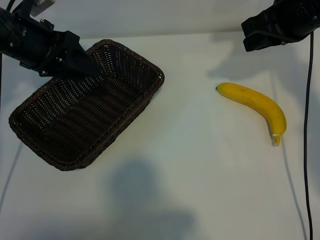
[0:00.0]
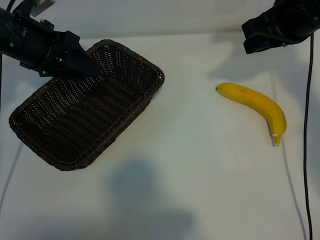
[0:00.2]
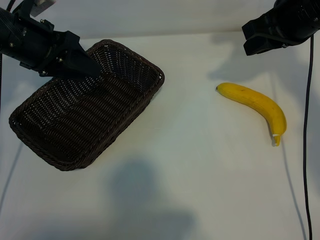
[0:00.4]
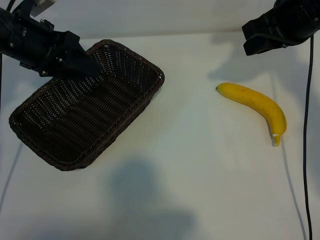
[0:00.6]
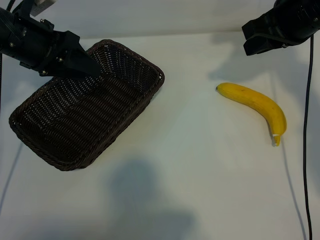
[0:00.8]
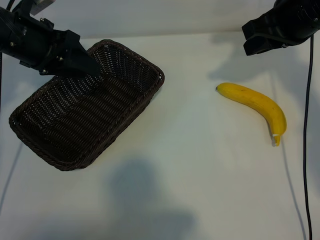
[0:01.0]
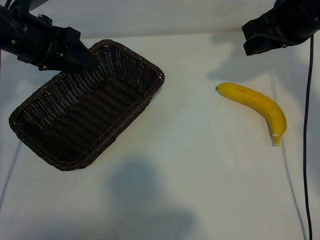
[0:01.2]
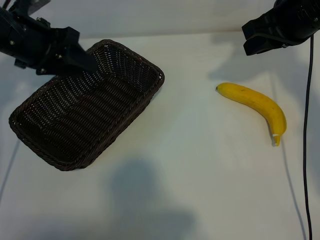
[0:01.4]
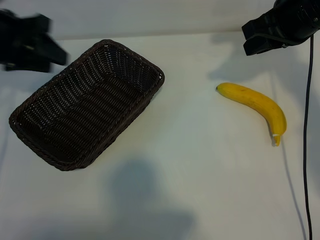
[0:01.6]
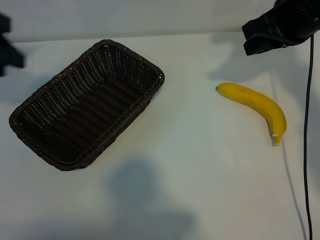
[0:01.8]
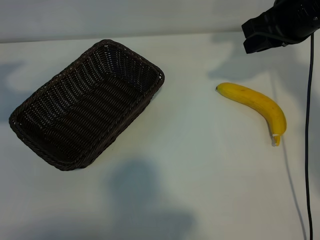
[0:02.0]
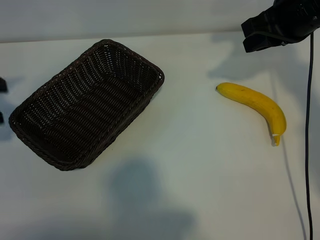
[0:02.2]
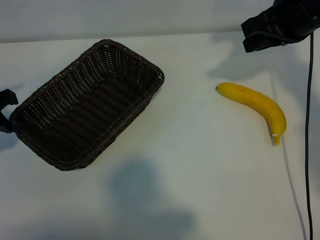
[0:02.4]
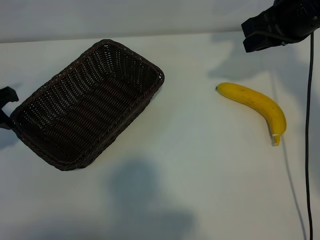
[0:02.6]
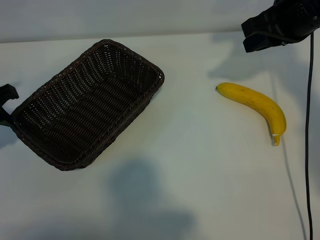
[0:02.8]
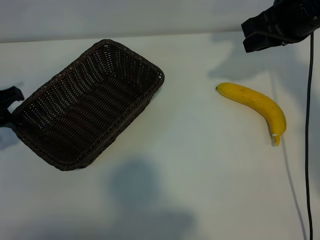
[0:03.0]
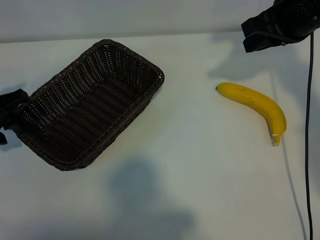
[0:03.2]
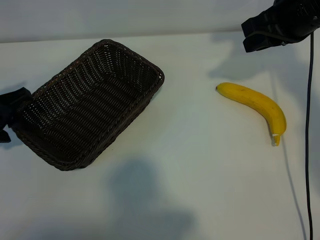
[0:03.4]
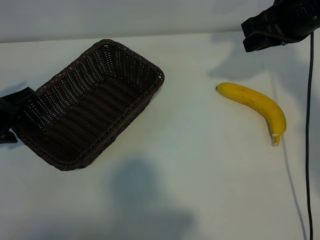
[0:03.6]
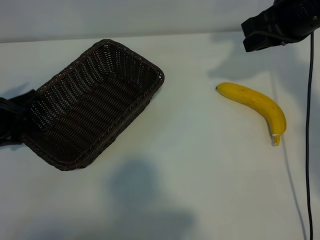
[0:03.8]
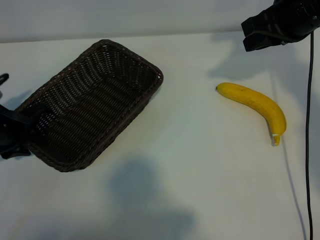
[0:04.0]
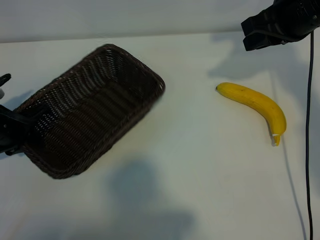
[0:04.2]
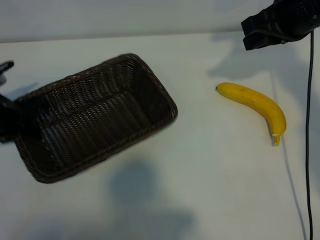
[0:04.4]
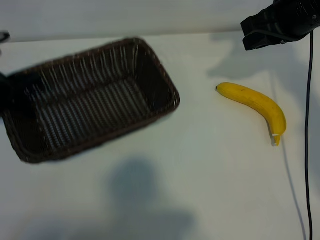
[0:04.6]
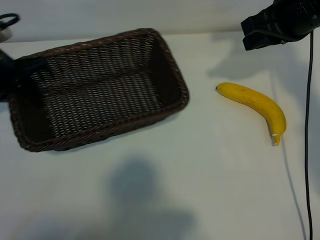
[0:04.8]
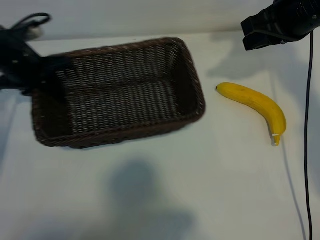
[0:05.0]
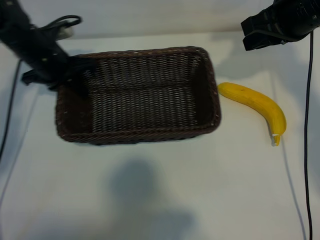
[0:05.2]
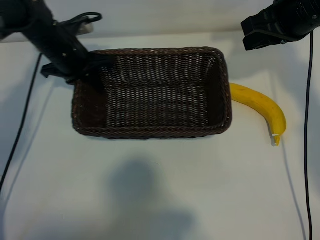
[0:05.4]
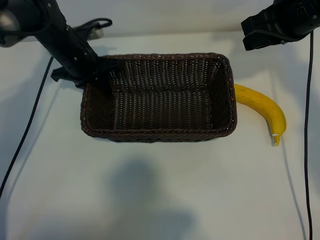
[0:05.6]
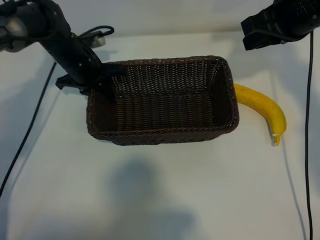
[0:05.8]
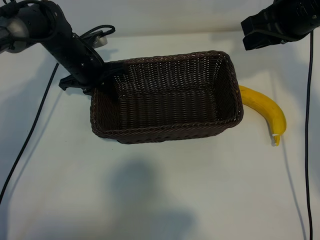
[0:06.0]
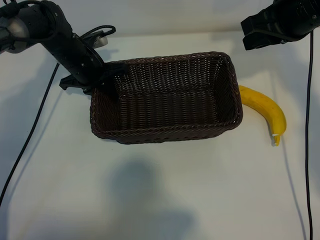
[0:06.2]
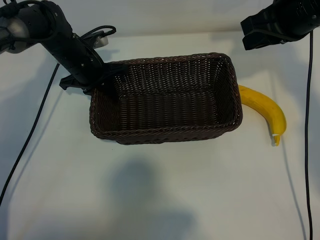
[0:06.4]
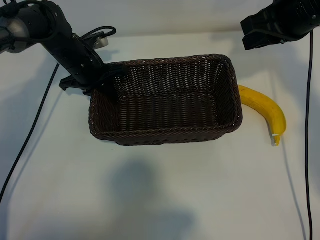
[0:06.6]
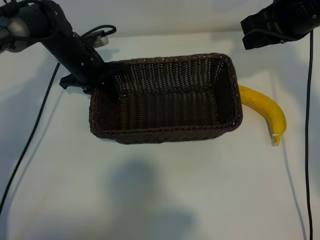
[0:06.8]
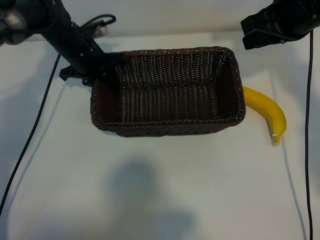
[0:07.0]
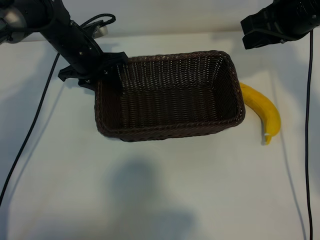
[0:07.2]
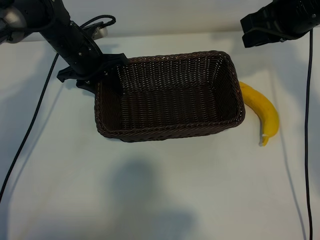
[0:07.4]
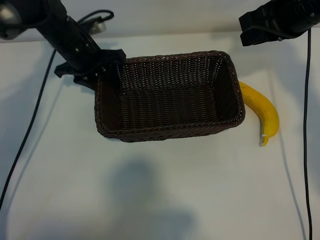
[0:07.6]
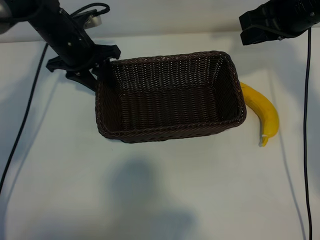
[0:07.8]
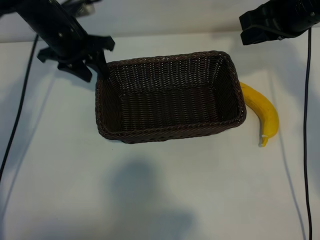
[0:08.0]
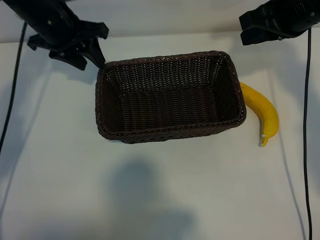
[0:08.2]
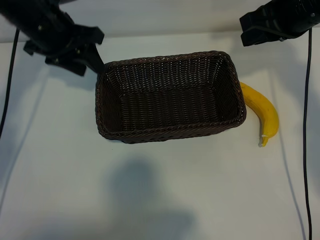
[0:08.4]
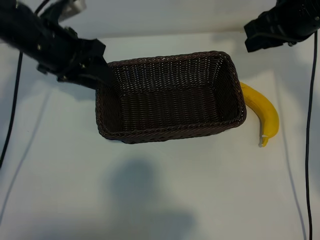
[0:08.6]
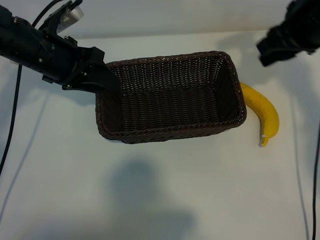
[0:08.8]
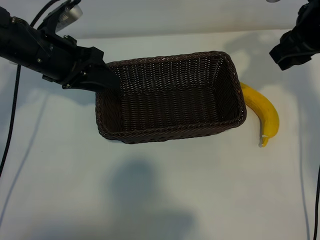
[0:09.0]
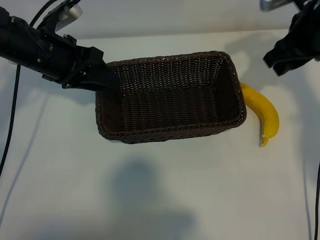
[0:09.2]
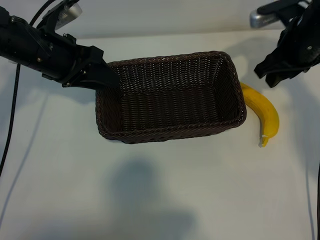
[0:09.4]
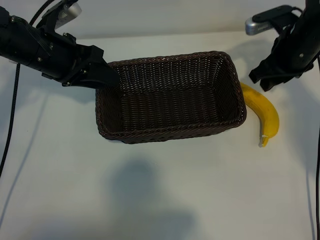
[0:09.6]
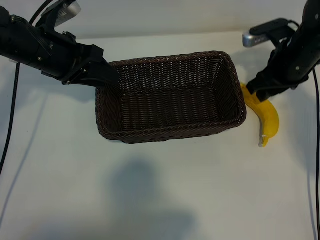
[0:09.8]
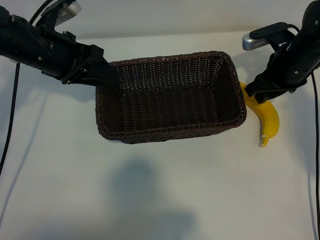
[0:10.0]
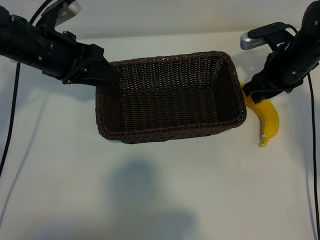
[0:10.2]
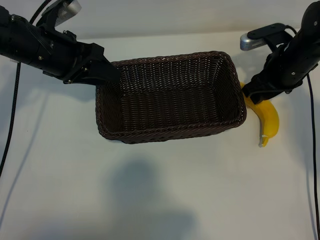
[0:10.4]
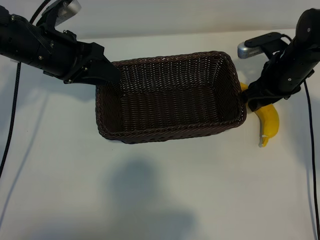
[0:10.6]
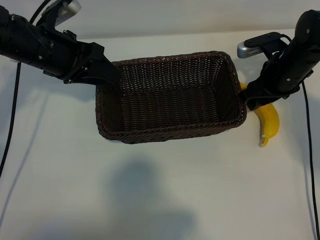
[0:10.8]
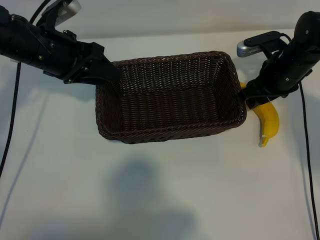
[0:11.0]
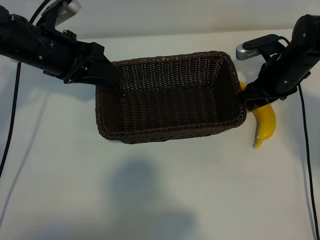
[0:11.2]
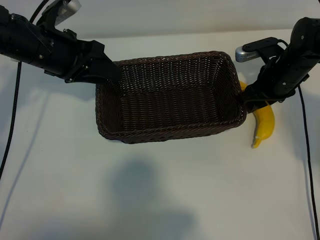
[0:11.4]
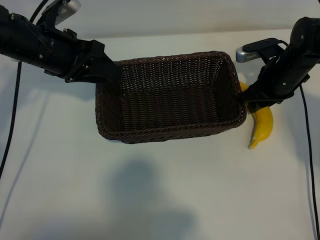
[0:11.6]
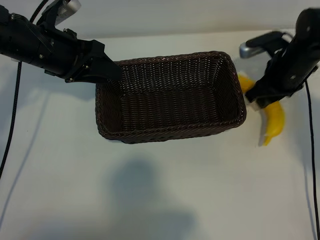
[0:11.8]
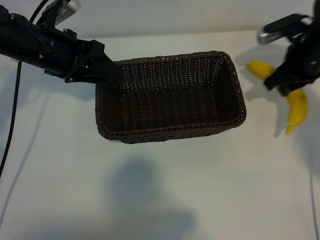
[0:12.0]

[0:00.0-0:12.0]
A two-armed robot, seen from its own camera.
Task of the whole recording: pick up the banana and put it into the basket.
Step, 0.8 to 4.2 s: Grasp the basket with the left gripper.
Step, 4.4 to 7.8 s: Place the basket in the center of the table with the left gripper.
Step, 8.0 to 11.4 s: Grasp the banana with right gripper.

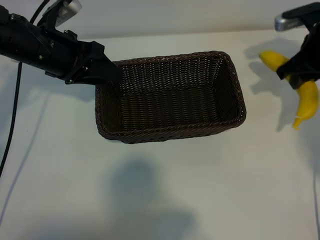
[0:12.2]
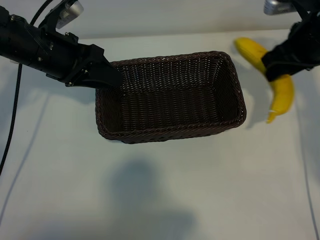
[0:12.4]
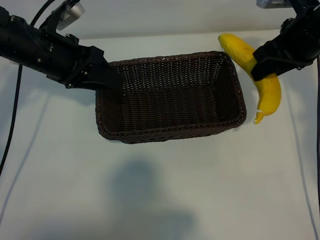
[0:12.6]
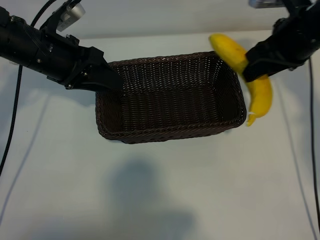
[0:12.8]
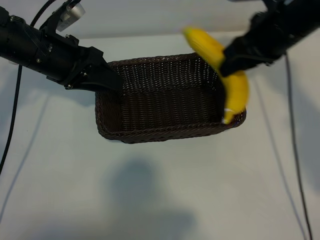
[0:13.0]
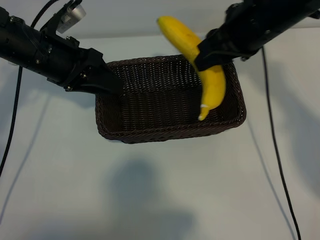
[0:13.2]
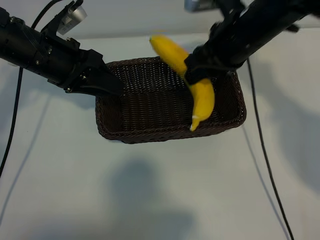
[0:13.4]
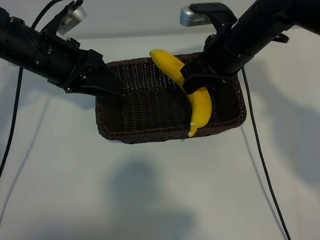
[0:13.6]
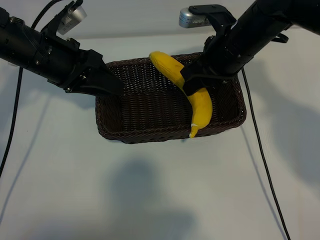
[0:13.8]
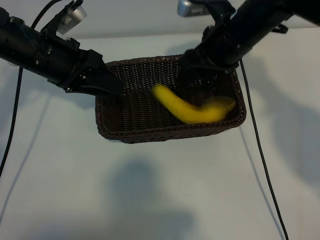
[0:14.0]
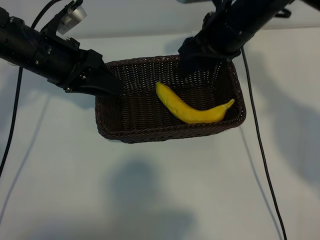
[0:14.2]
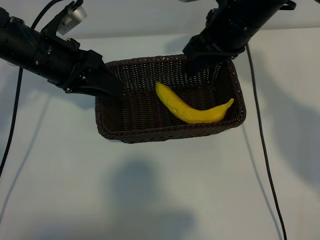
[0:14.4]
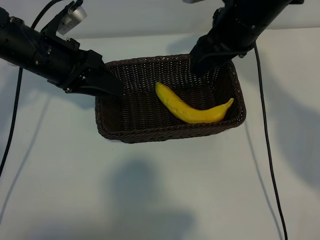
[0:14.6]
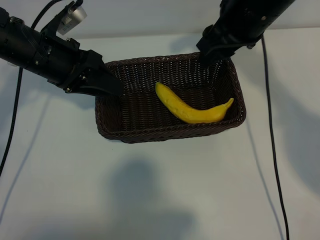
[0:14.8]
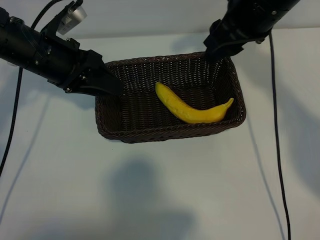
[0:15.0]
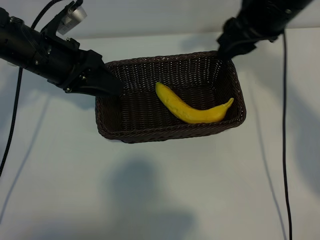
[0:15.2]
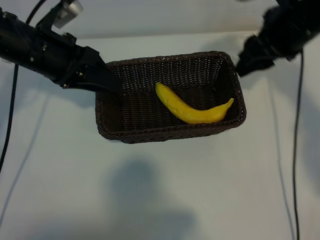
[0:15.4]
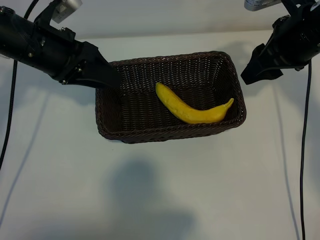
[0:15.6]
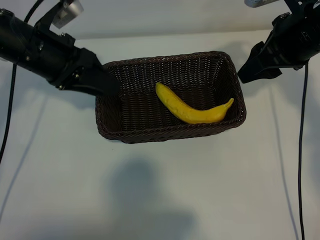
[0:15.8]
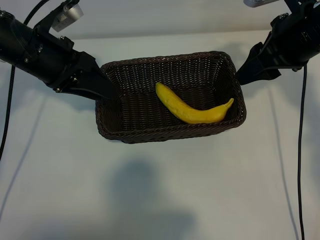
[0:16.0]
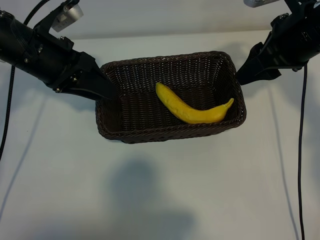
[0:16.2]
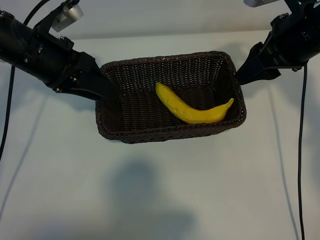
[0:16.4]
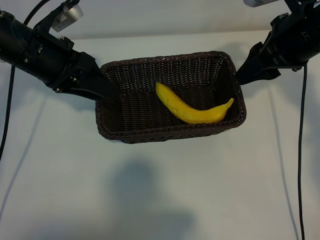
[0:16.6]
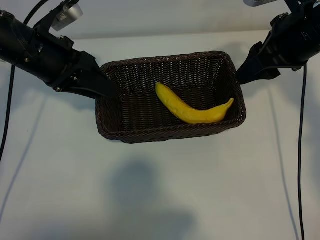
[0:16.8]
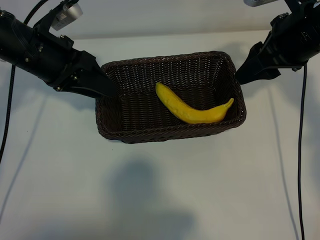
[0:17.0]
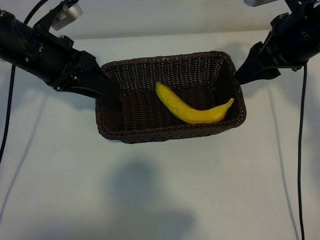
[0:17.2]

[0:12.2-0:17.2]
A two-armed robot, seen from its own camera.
Task of the whole recording: pick up the banana and put it into the basket.
Step, 12.2 to 14.2 s: Place the banana in the basket with right gripper.

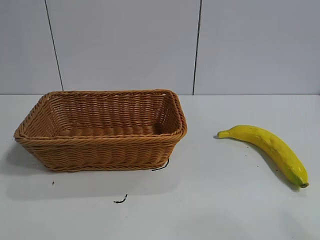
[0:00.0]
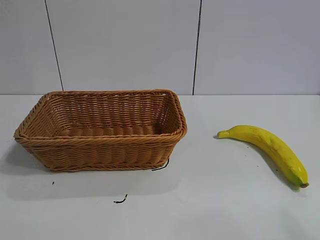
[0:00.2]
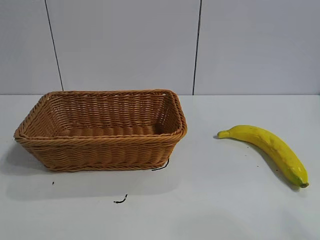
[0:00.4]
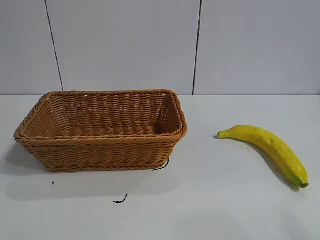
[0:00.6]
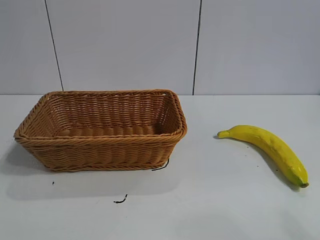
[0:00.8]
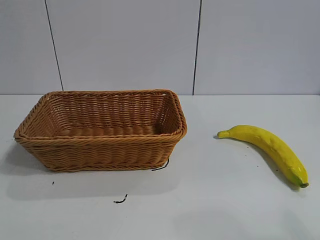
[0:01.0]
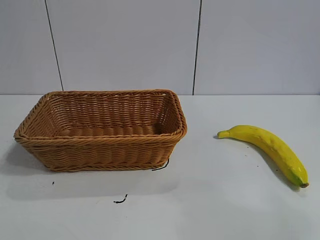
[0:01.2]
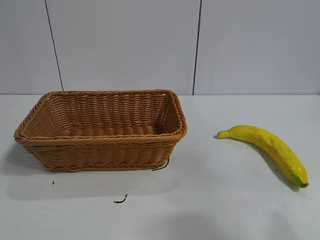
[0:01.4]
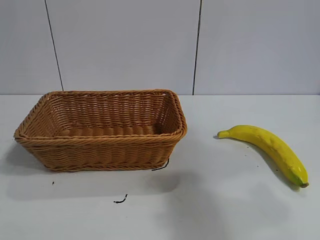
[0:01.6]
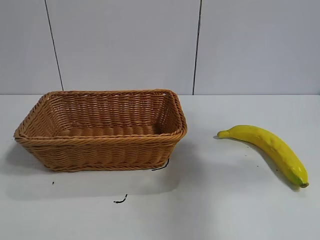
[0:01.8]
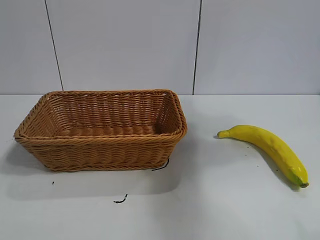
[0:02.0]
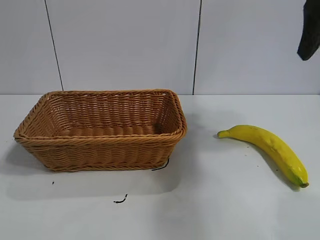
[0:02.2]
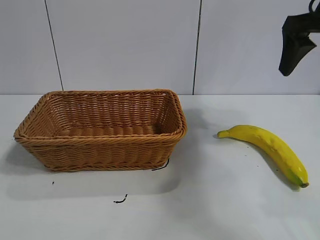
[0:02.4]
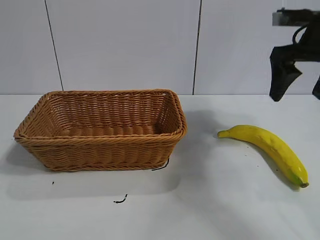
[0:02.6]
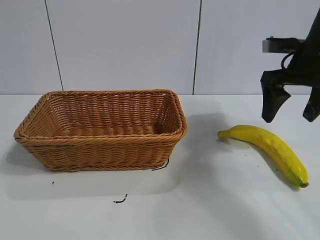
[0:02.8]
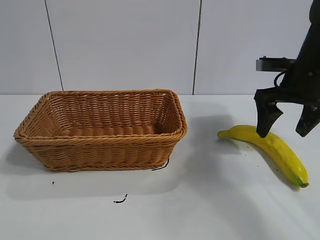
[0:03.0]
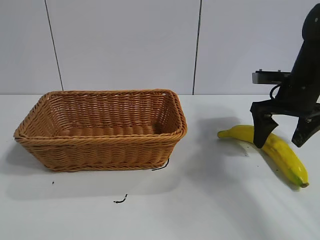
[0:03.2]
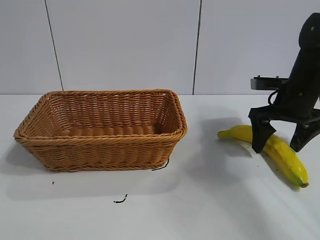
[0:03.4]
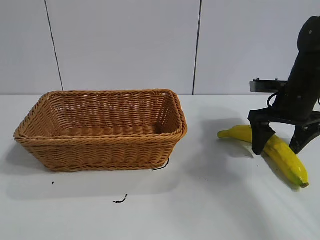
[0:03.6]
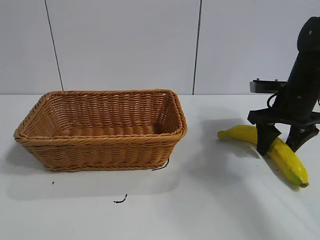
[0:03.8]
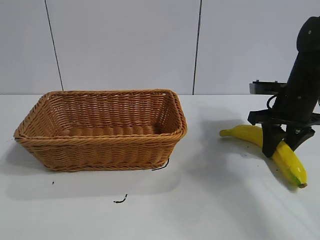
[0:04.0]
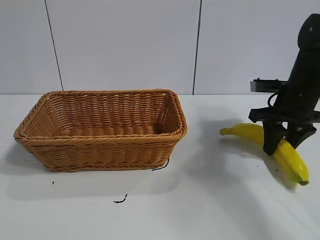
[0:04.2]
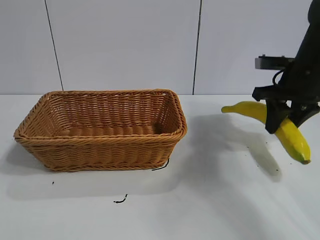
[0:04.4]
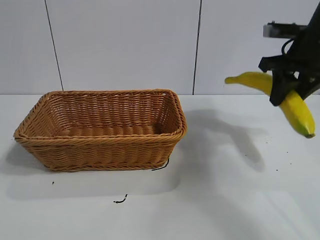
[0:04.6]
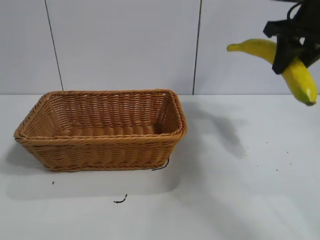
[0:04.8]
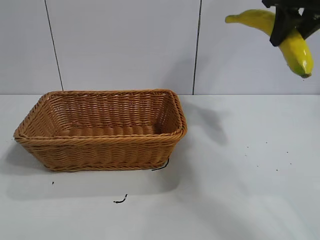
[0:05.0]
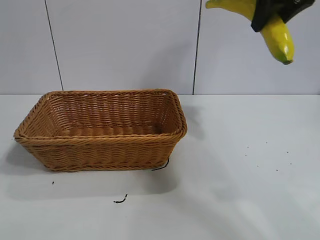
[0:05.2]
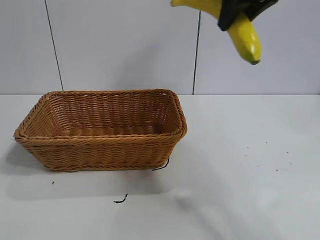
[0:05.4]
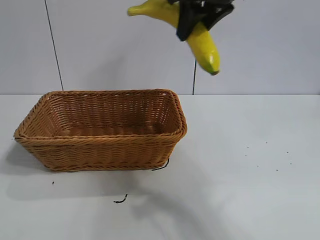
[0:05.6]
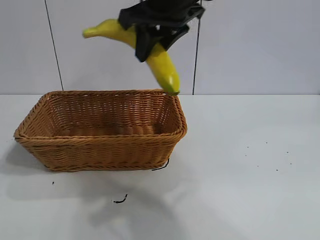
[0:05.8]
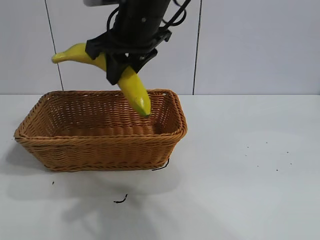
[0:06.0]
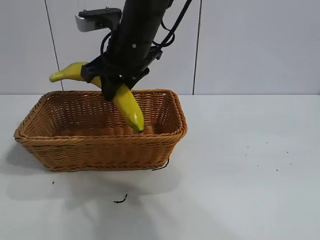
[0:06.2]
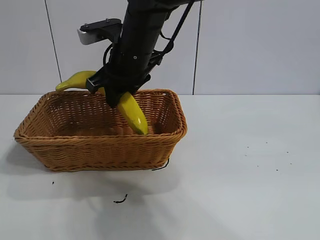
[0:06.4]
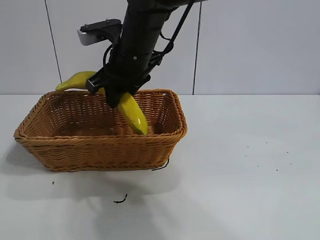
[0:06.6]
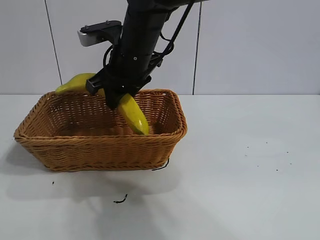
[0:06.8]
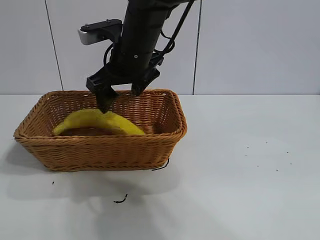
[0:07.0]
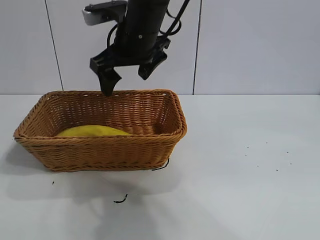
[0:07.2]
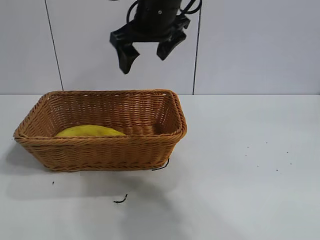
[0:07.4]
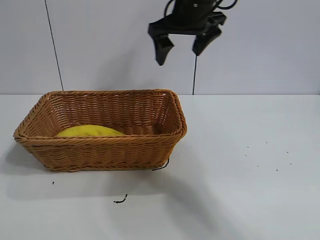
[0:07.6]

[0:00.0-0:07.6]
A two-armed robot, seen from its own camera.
Task of the whole recording: pick up the banana and put it into the basket.
Step, 2.2 to 4.2 s: Grasp the banana with right gripper.
Step, 4.4 to 7.0 s: Place the banana in the basket with right gripper.
